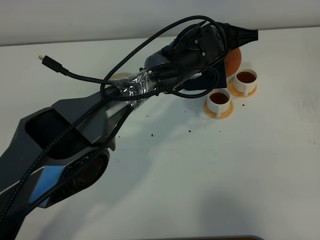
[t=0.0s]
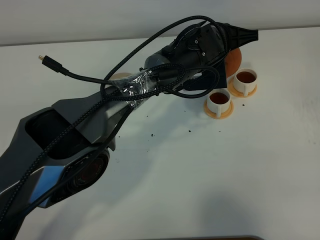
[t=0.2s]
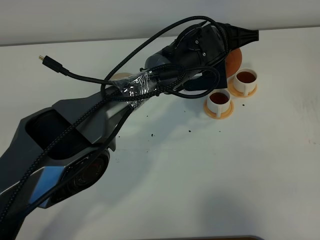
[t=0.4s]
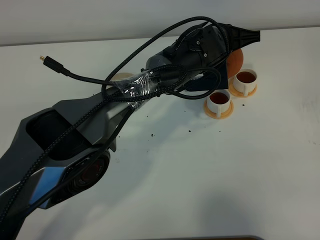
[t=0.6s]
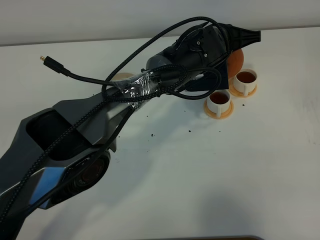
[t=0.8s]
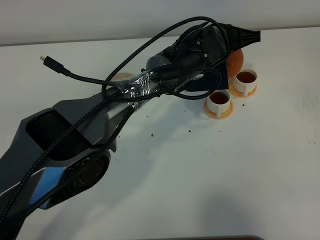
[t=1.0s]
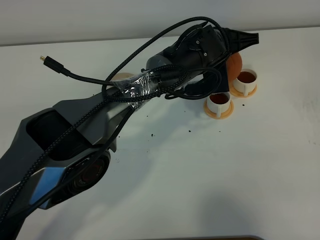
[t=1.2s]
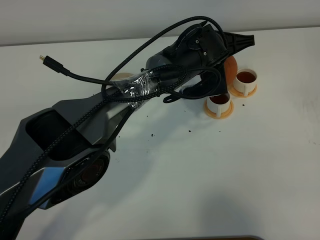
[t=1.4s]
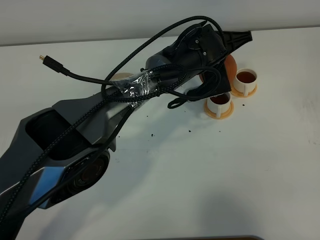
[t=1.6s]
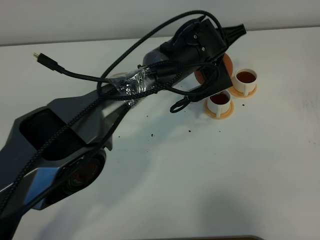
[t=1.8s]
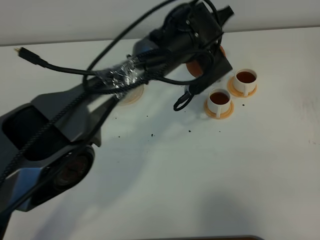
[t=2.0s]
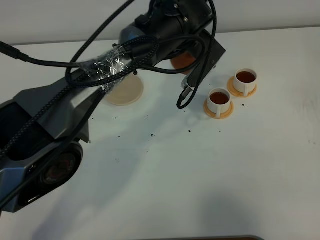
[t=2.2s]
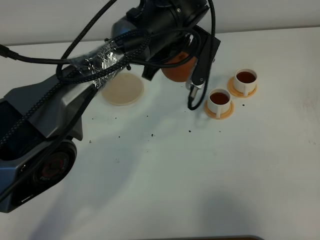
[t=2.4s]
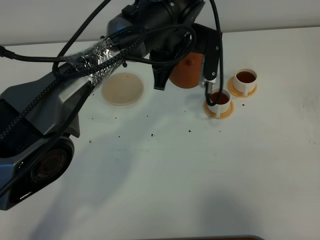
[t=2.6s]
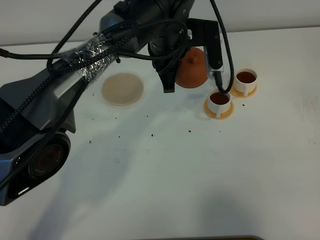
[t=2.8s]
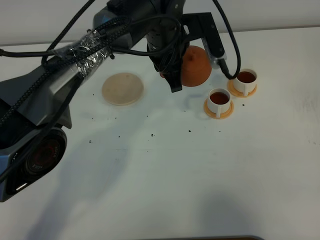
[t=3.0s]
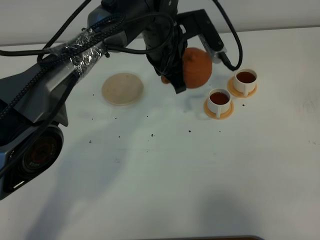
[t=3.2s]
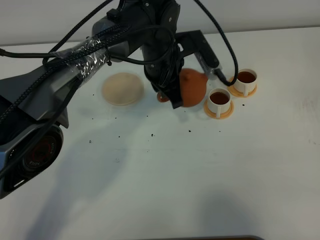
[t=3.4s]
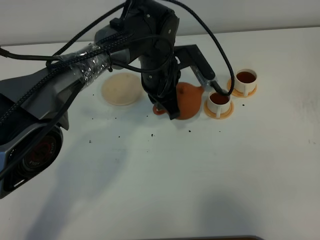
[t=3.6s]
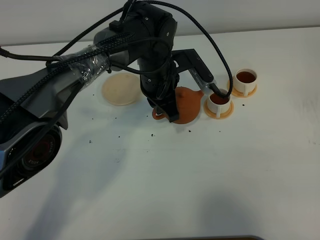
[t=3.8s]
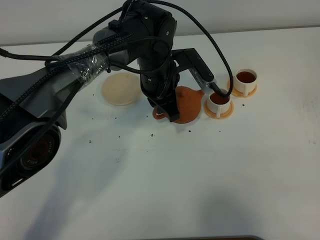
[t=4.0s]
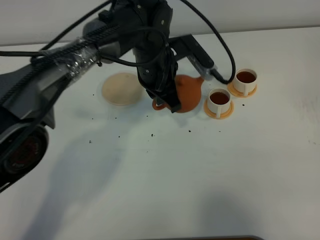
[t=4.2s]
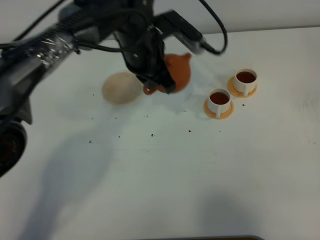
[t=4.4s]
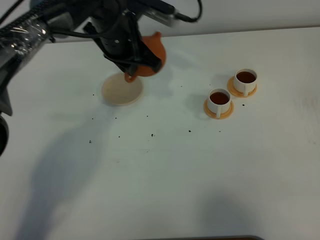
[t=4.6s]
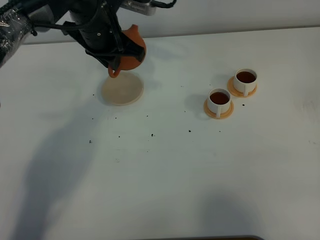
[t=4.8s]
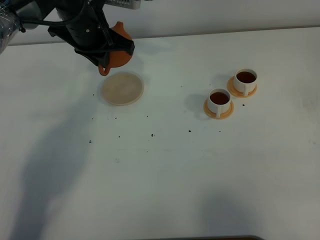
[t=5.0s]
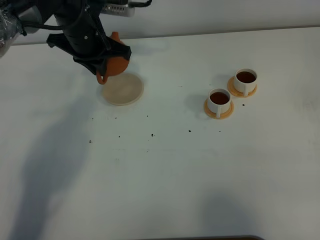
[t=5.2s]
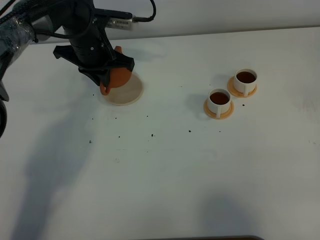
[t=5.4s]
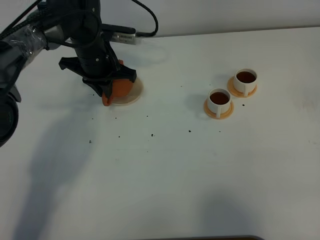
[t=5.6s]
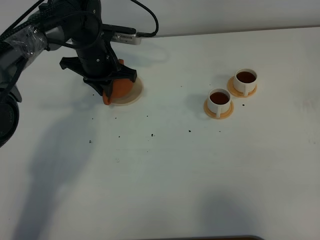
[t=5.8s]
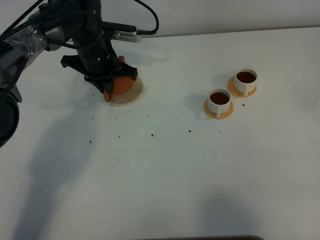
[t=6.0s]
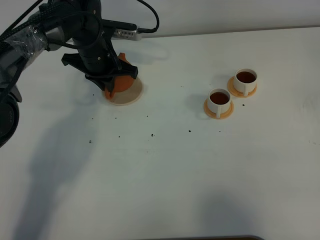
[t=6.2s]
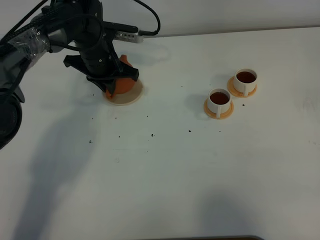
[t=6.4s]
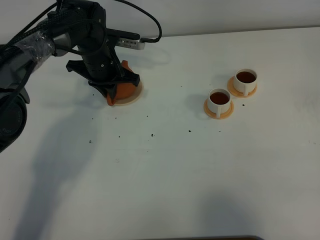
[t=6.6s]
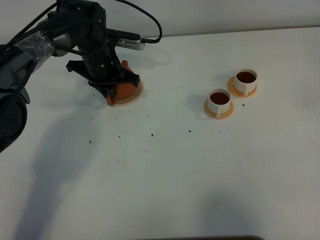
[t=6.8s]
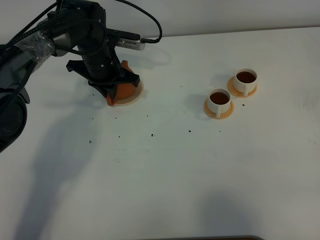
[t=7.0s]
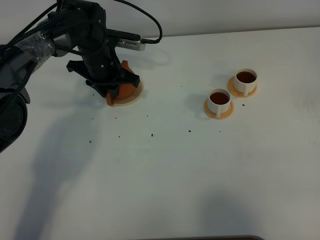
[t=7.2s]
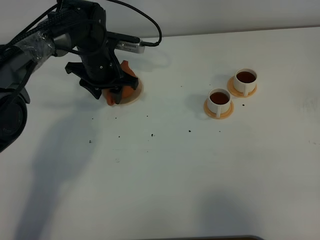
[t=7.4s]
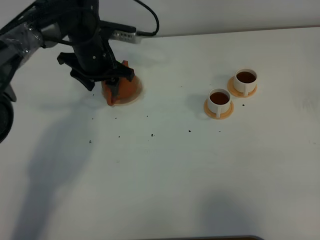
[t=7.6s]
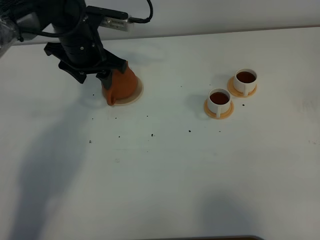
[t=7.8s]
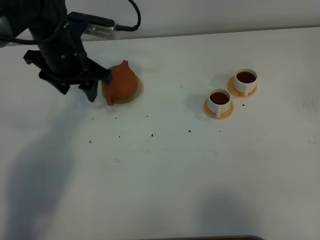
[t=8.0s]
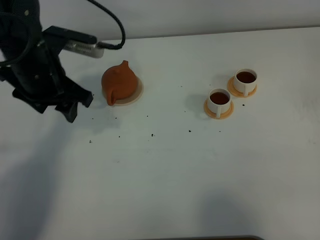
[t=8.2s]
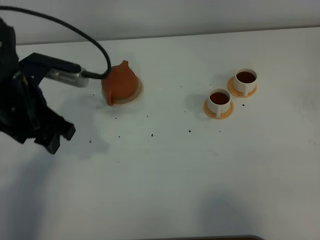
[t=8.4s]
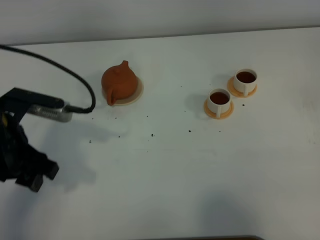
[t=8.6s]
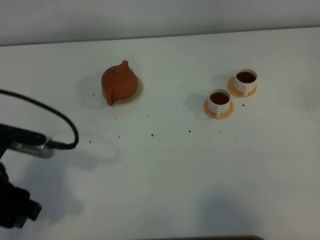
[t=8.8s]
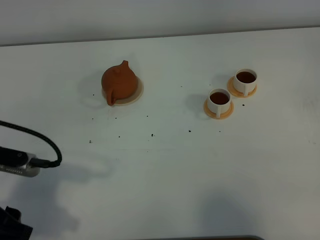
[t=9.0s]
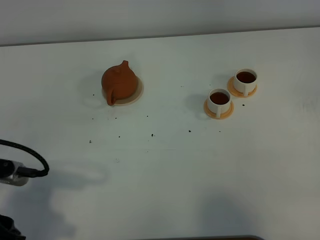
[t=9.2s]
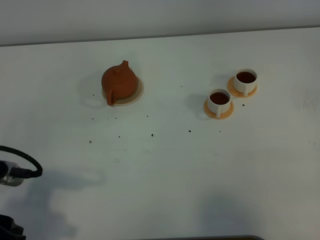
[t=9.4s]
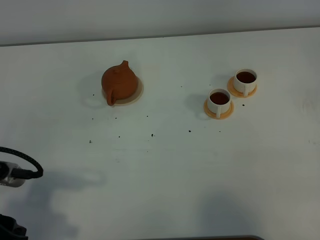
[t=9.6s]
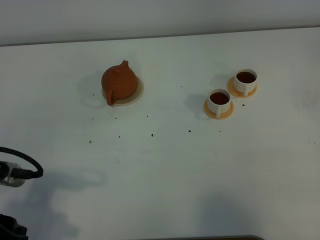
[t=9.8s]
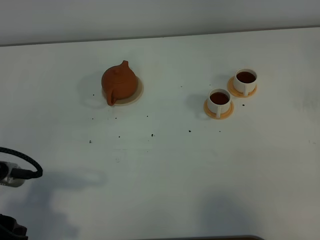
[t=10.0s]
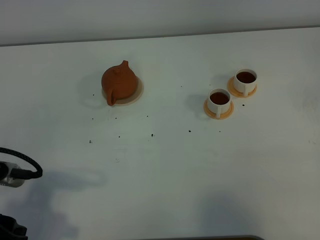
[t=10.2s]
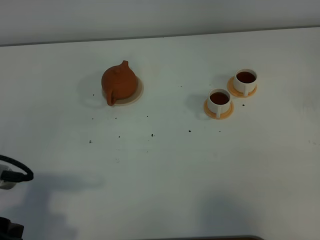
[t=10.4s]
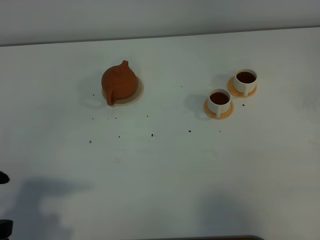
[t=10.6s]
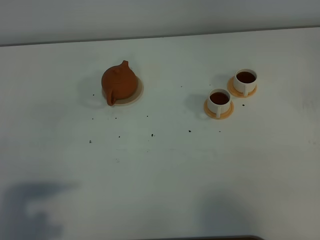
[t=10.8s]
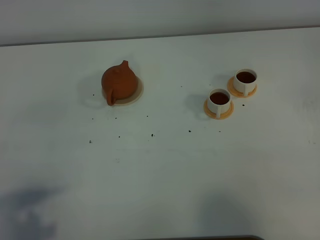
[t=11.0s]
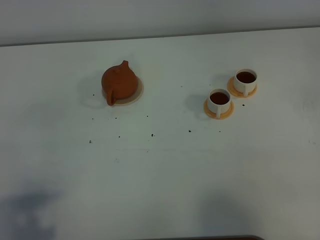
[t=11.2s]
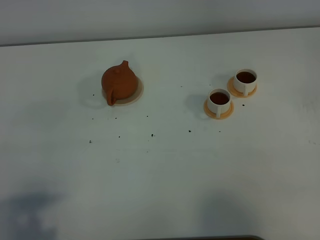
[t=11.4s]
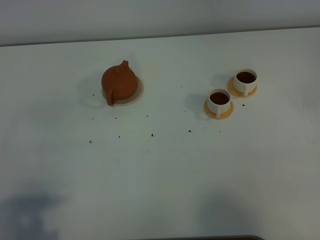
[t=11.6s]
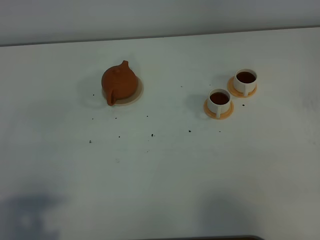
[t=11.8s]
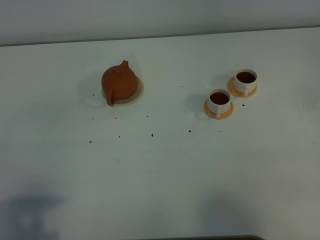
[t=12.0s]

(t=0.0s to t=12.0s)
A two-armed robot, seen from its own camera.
Task of the whole recording: grasp the brown teapot and pour the tea into the two white teacups one by one, put the brown teapot back in its original place.
Step, t=0.0s - t=2.4s: Pour tea into the teacup with the left gripper.
t=0.0s - t=1.6s: The grippers stay close to where they were, moving slightly.
t=1.6s - t=3.0s: The left gripper travels to the left and upward by approximately 10 cm.
t=3.0s - t=4.4s: The left gripper shifts about 5 cm to the left.
t=4.4s - t=6.0s: The left gripper moves to the left, downward and forward, some 15 cm.
t=6.0s - t=7.6s: The left gripper opens.
t=7.6s - t=9.0s: The left gripper travels backward by about 35 cm.
t=9.0s - t=10.4s: The grippers move only a little.
t=10.4s - t=12.0s: The left gripper travels backward by approximately 5 cm.

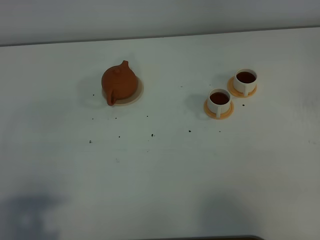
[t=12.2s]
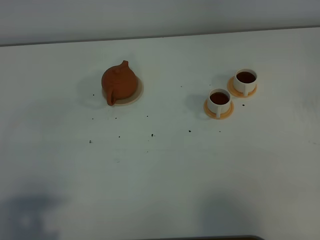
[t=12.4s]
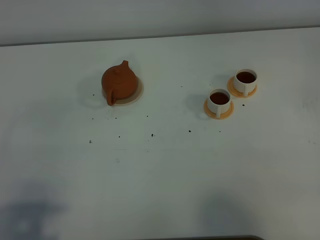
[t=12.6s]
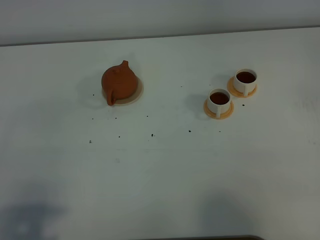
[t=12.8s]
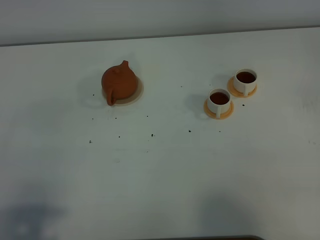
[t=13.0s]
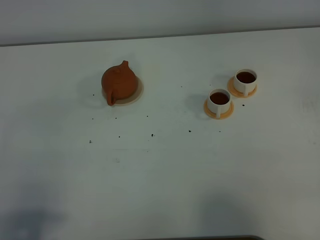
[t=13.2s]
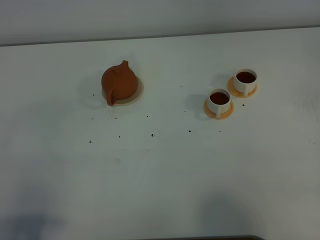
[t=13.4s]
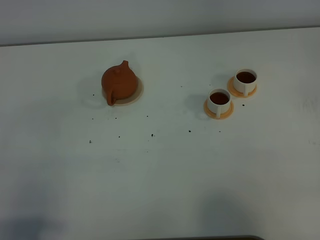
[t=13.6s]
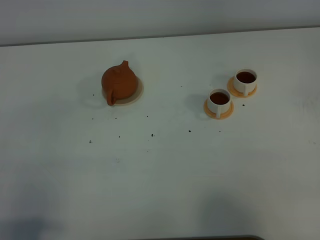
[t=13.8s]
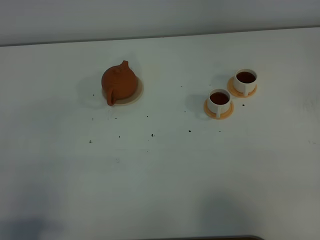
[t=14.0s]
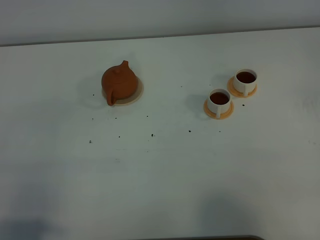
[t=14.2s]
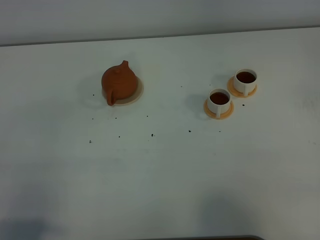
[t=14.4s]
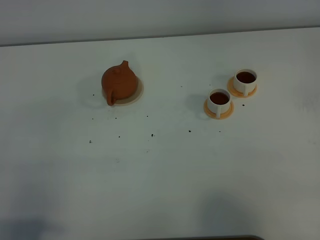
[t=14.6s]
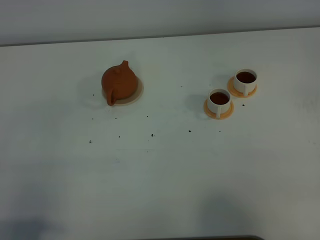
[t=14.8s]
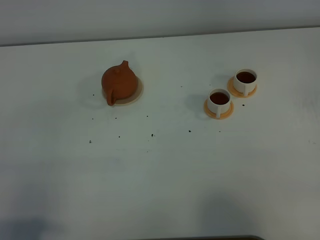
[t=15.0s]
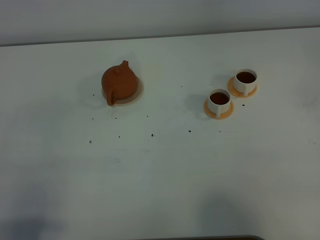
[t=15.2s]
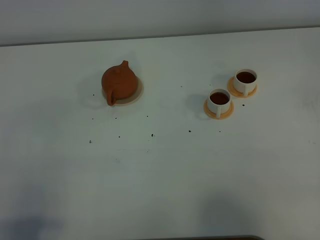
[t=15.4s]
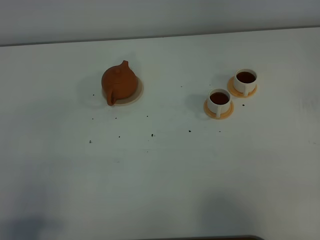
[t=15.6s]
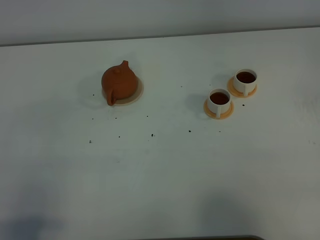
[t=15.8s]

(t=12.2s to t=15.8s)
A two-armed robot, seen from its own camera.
Task of the whole recording: grasp the brown teapot and pour the tea into the two white teacups one by one, put the brown teapot back in its original place.
t=14.0s - t=15.8s: The two grippers keep their place.
